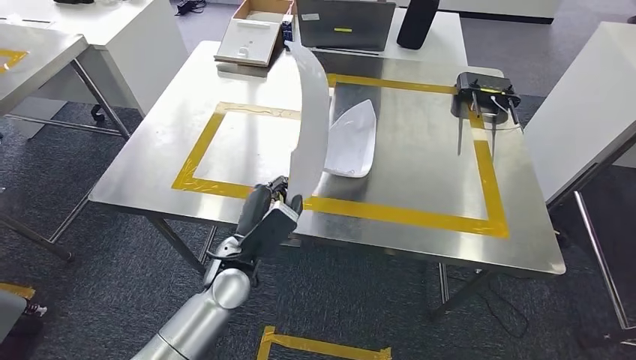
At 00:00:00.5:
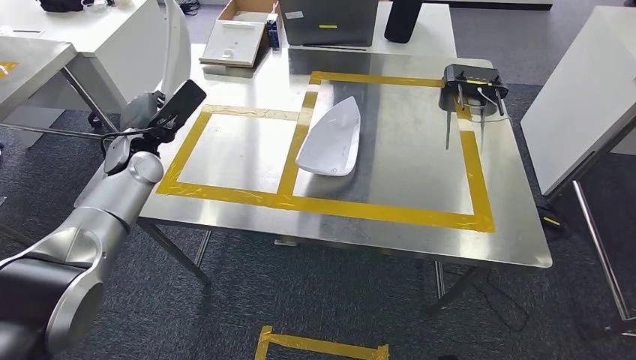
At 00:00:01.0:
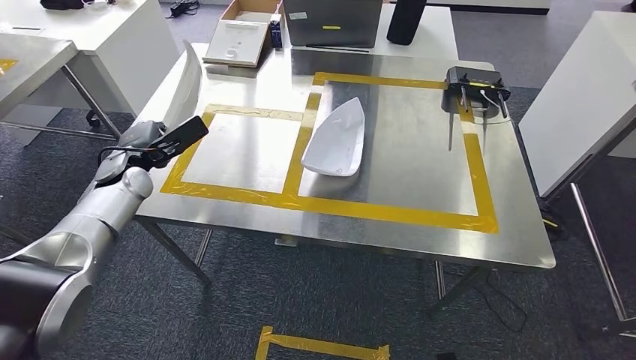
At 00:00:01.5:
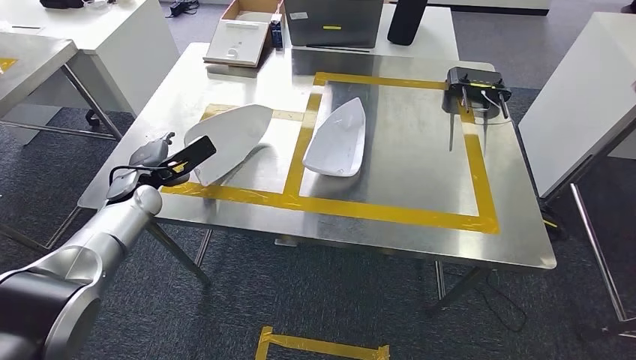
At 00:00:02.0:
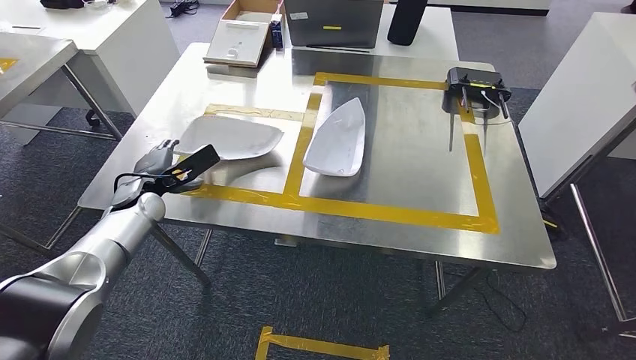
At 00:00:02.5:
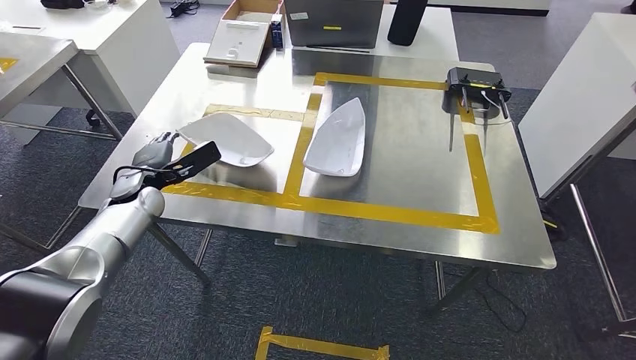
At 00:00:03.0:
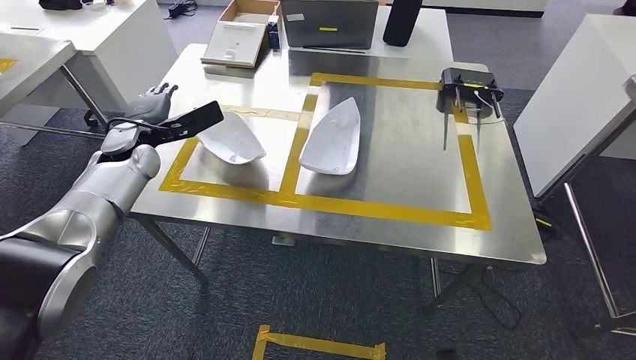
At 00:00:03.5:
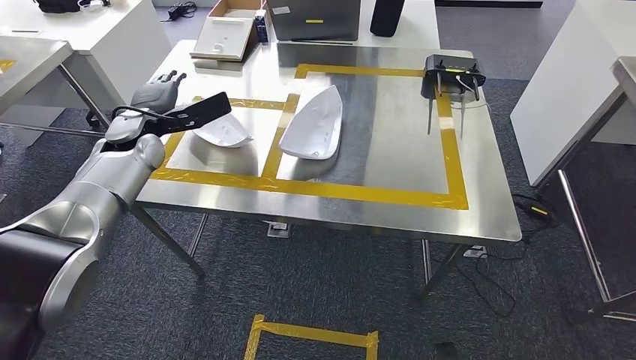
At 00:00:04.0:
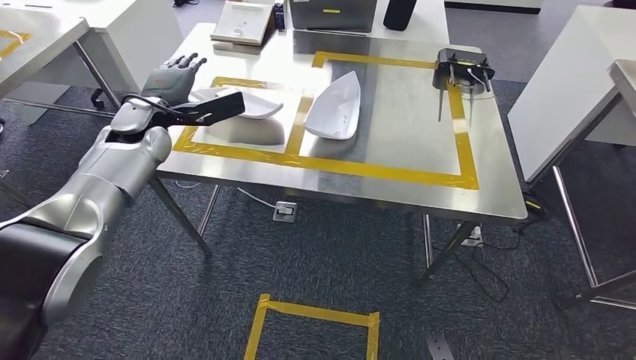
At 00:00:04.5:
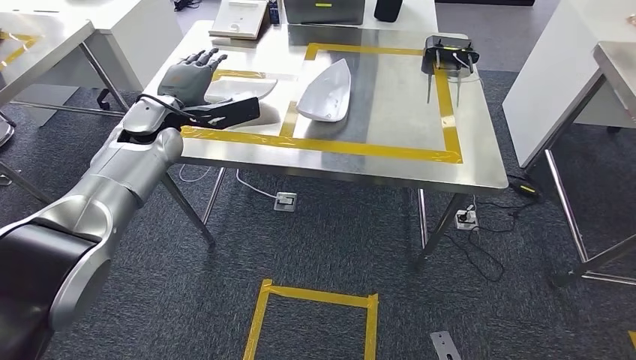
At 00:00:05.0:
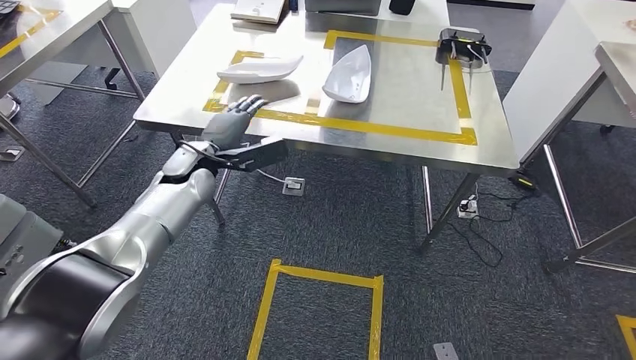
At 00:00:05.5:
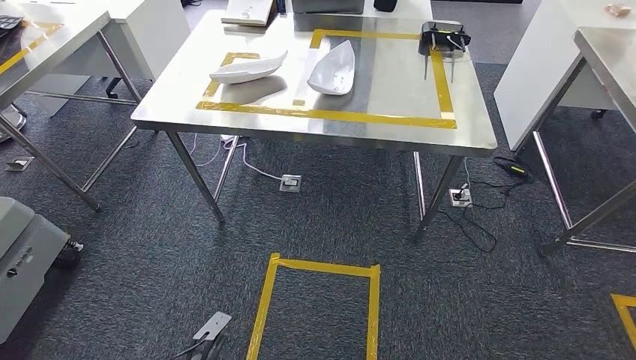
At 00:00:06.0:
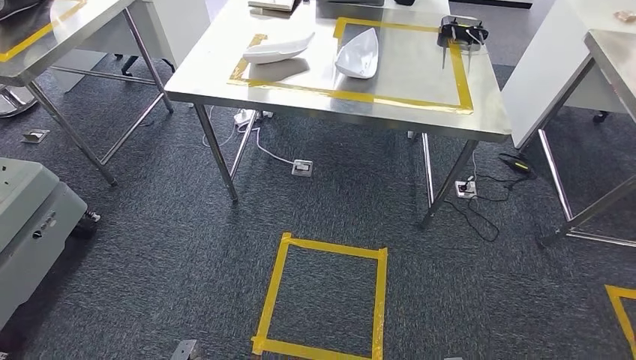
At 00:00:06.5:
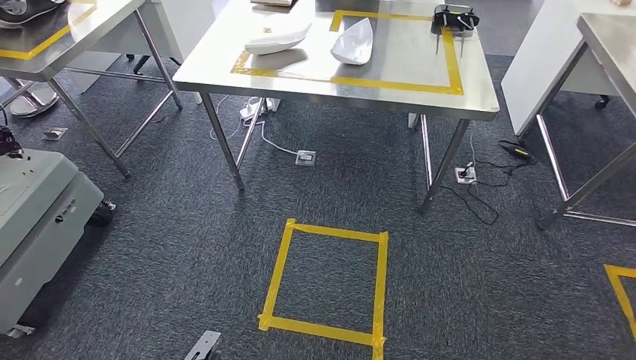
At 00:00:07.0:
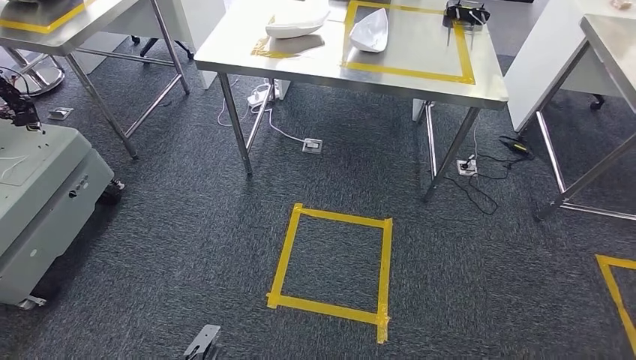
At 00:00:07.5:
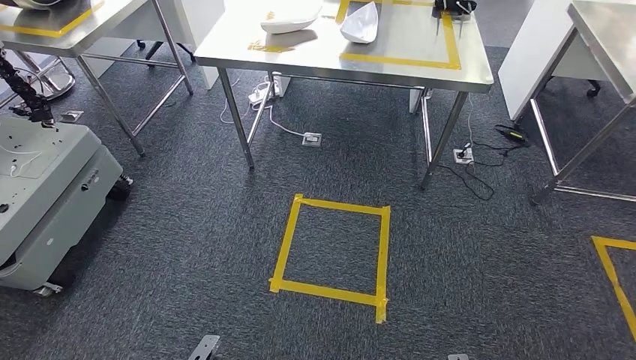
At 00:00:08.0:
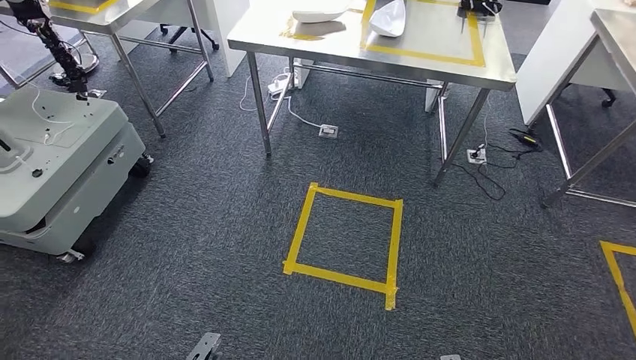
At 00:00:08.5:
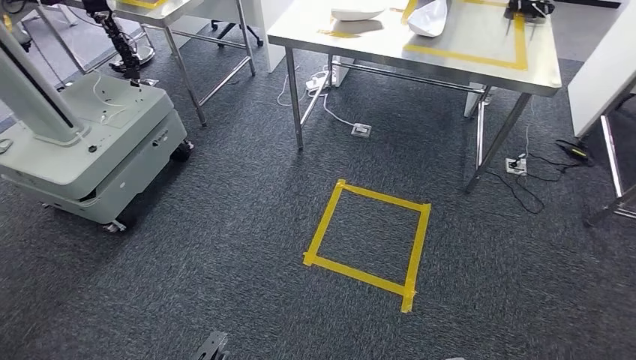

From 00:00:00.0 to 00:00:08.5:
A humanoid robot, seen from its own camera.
Step, from 00:00:00.0 to 00:00:03.5: Insert the small parts into the corresponding holes on the workbench.
Step, from 00:00:04.0 to 00:00:08.5: Move to the initial position at the workbench.

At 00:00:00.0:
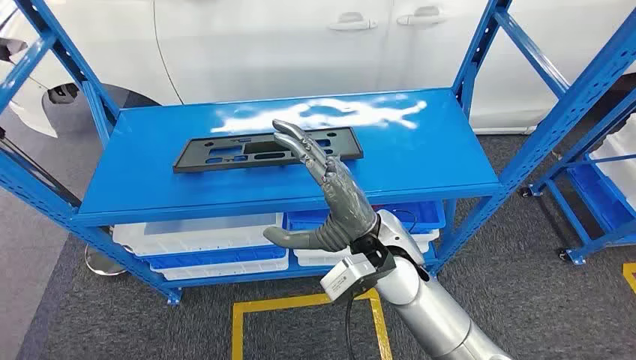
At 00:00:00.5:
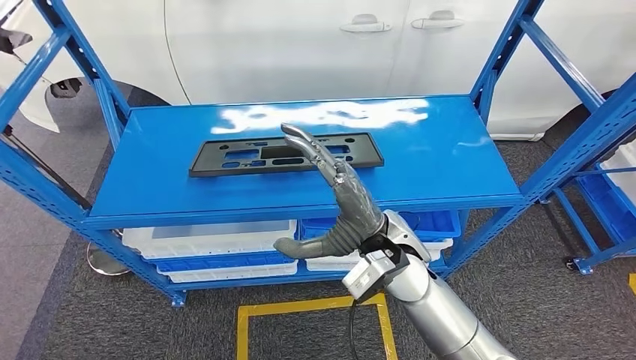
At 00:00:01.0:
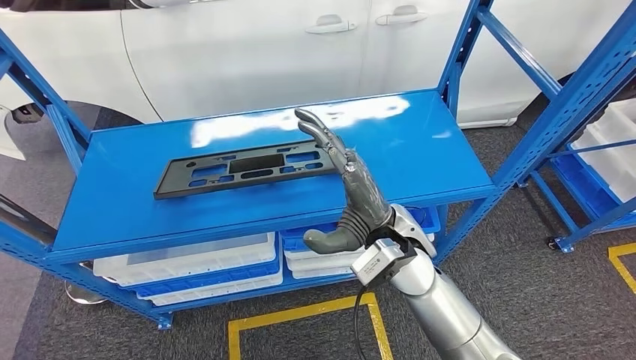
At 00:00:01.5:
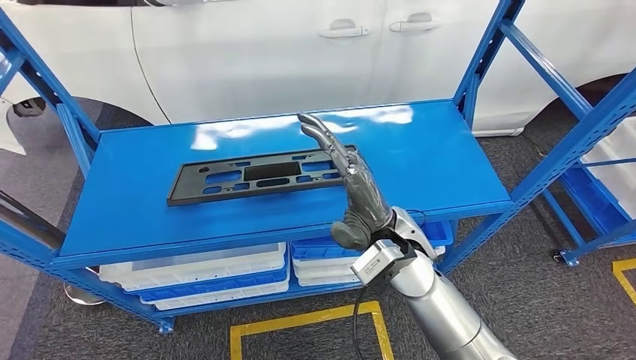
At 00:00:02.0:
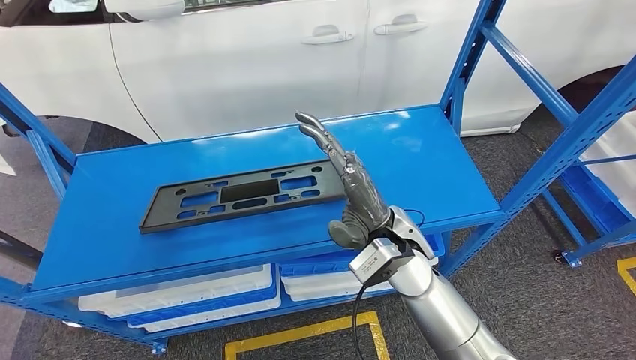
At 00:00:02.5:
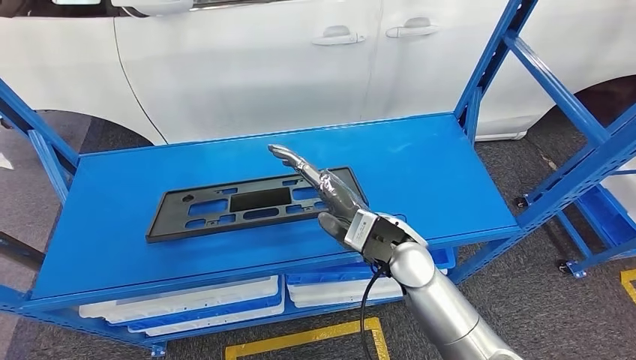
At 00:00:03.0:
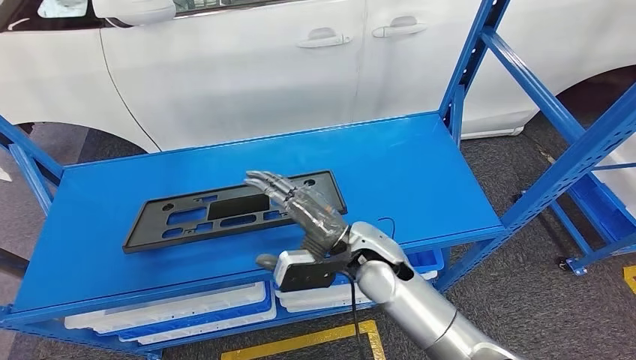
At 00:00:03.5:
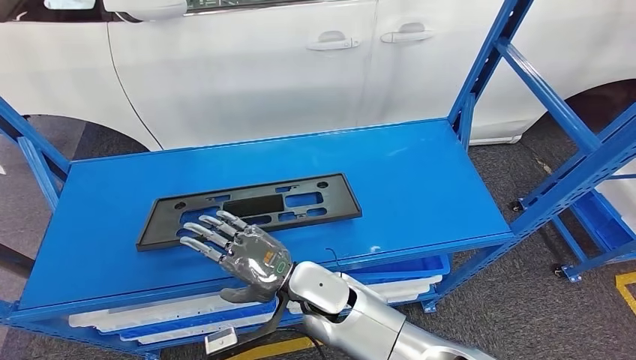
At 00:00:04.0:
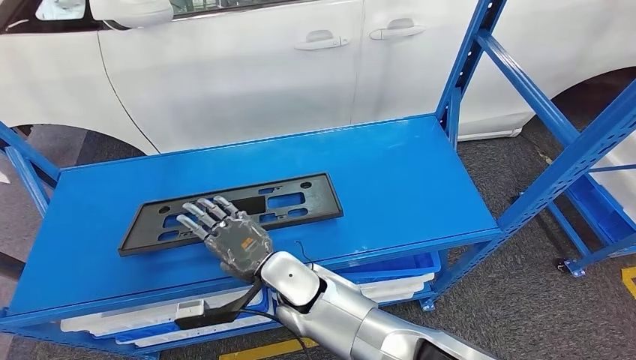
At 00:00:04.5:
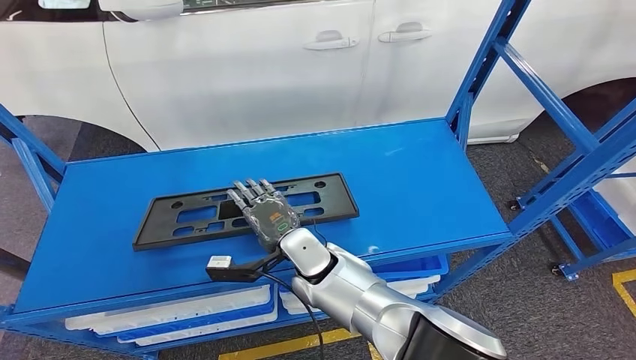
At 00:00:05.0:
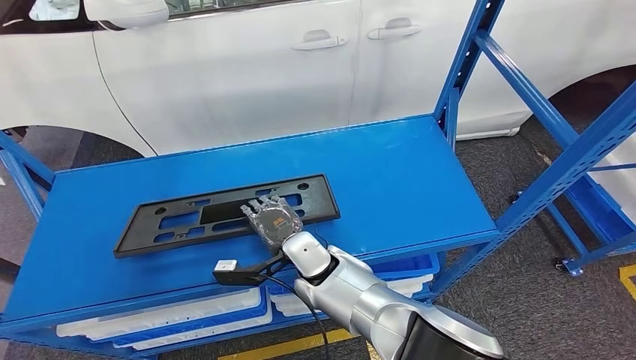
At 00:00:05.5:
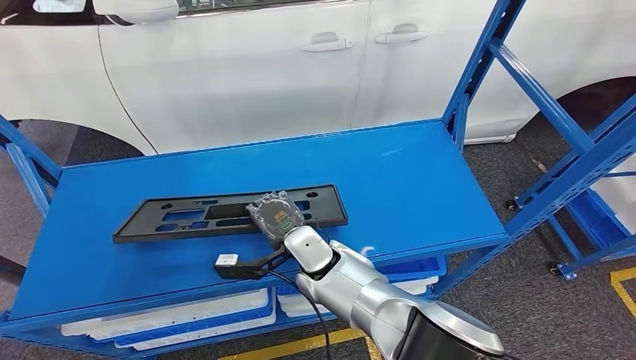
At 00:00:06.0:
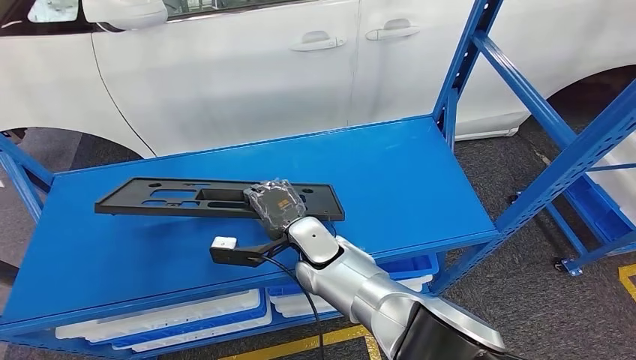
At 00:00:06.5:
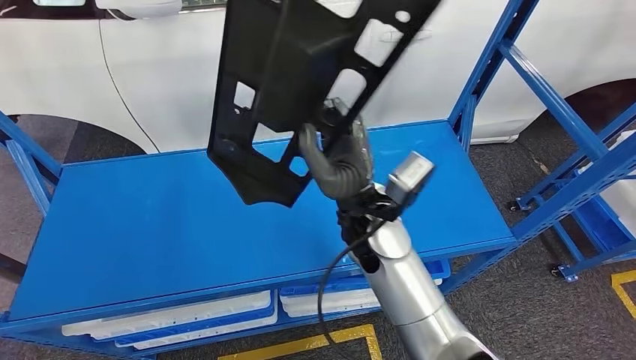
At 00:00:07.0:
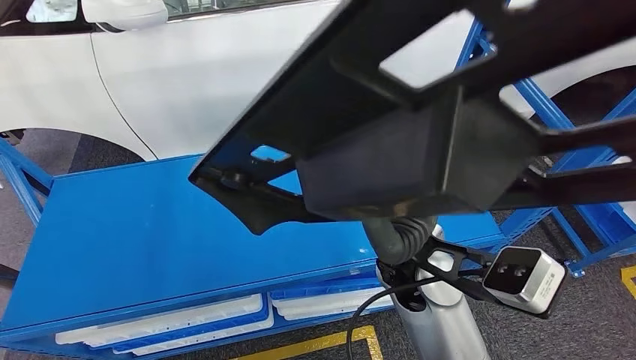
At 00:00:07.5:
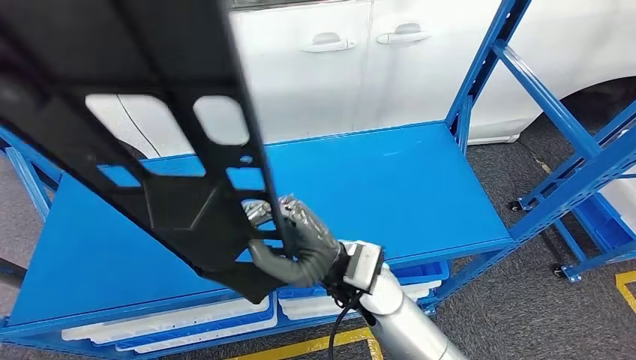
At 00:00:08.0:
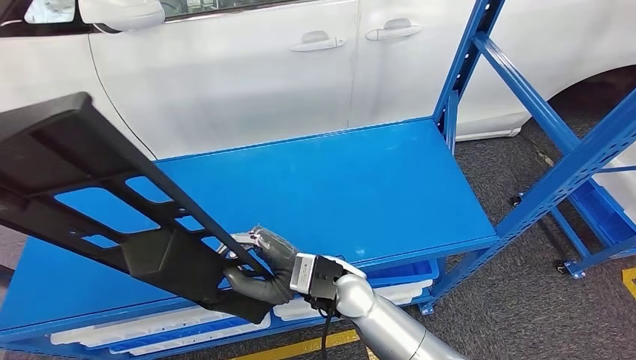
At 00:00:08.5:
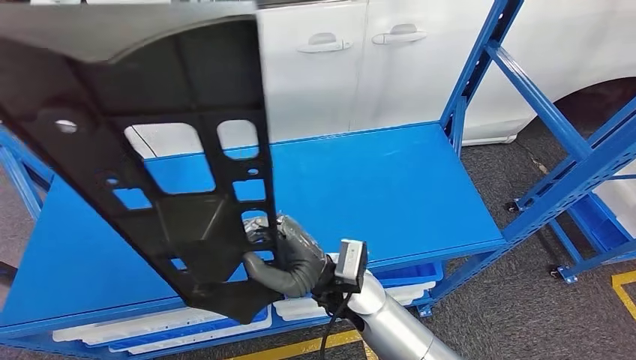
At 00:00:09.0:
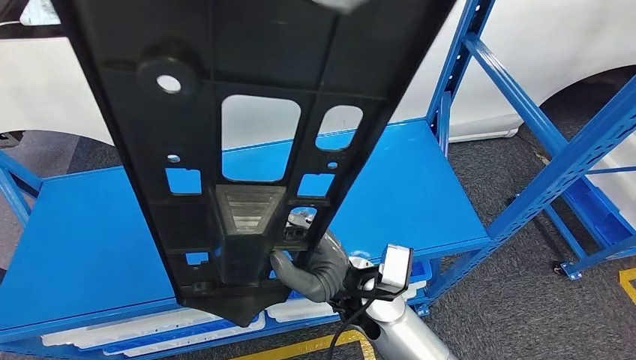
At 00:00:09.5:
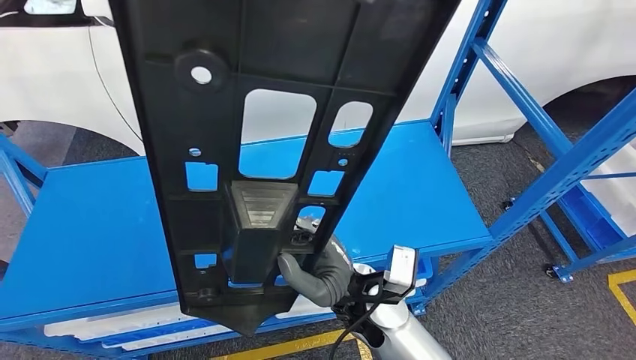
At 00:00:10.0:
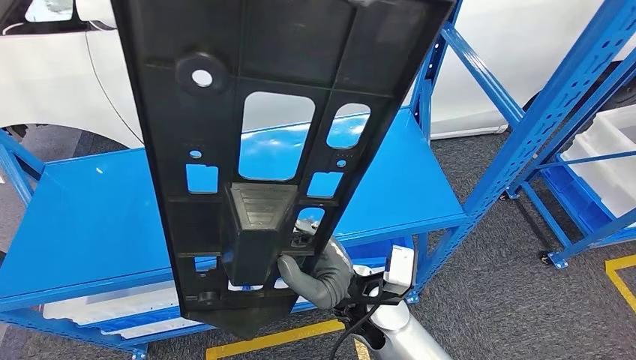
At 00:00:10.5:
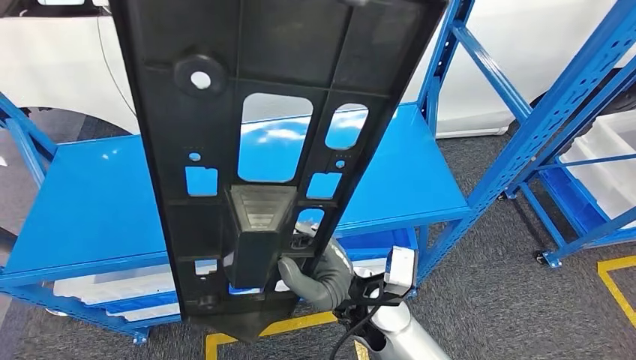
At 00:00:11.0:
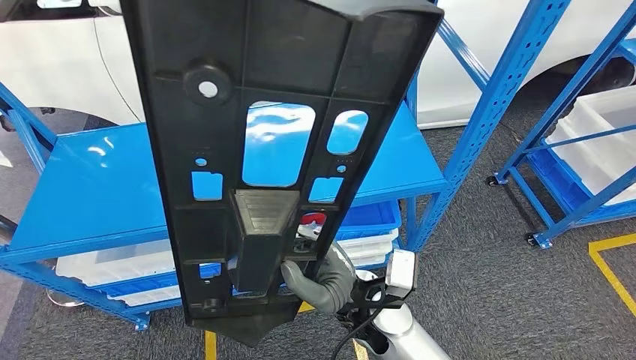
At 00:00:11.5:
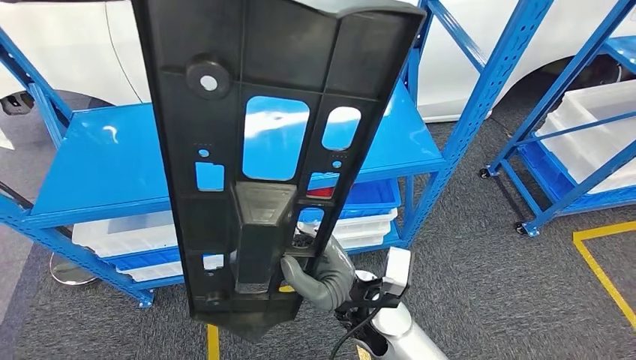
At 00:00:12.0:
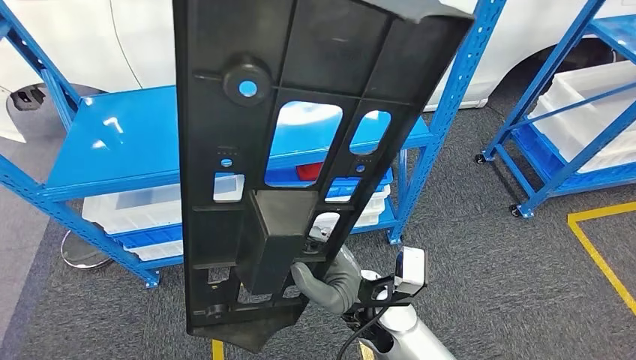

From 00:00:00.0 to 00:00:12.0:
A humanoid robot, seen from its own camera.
Step, from 00:00:00.0 to 00:00:07.5: Pick up the small parts from the shelf.
